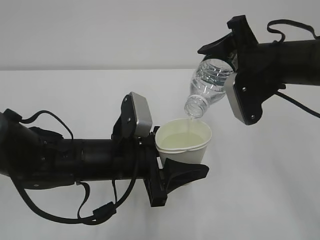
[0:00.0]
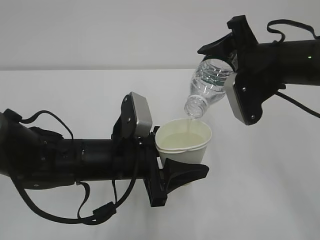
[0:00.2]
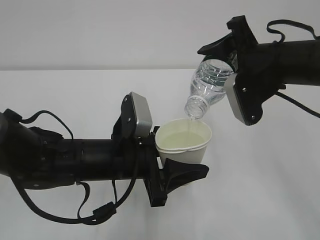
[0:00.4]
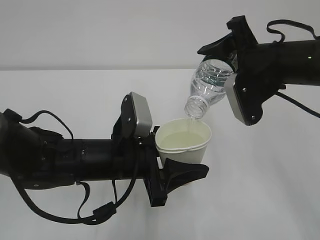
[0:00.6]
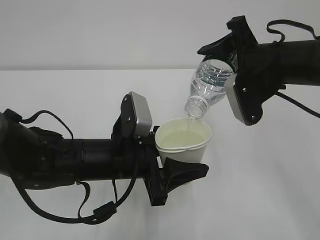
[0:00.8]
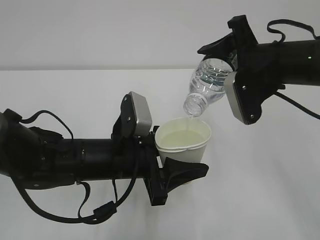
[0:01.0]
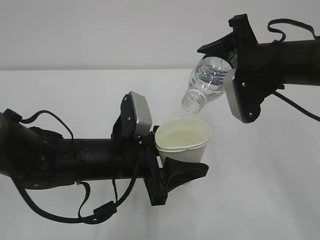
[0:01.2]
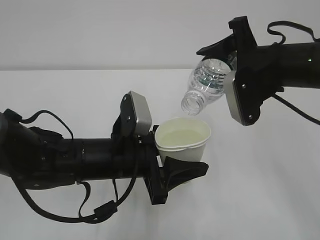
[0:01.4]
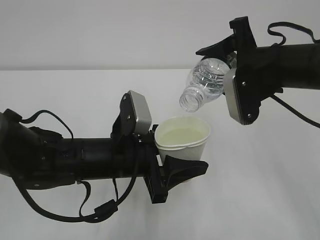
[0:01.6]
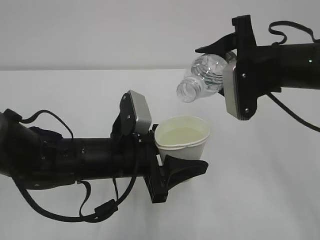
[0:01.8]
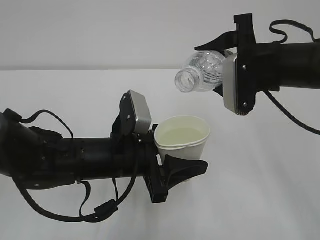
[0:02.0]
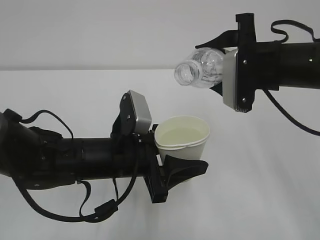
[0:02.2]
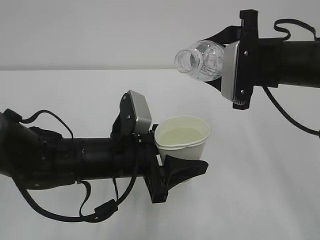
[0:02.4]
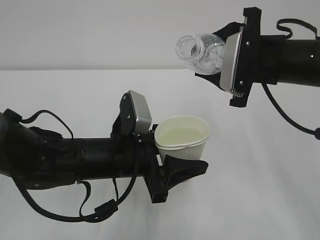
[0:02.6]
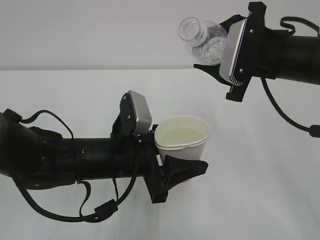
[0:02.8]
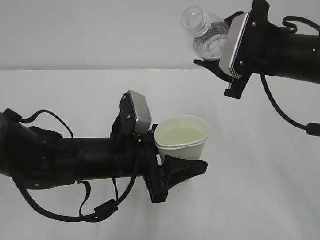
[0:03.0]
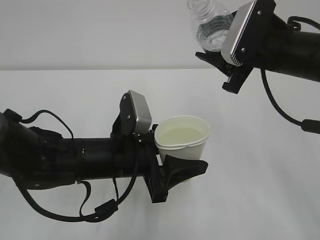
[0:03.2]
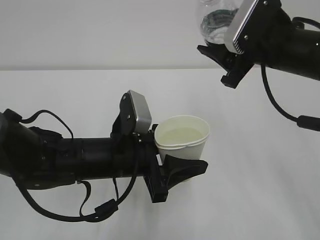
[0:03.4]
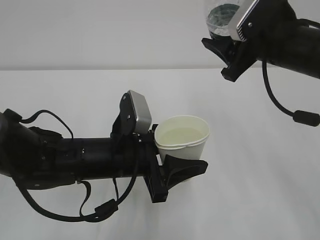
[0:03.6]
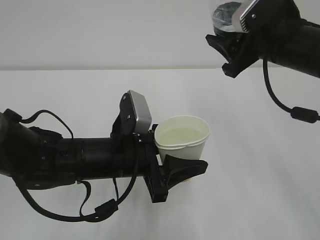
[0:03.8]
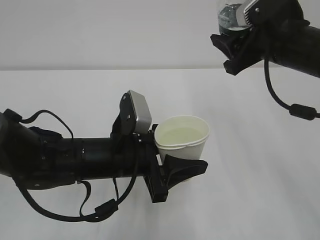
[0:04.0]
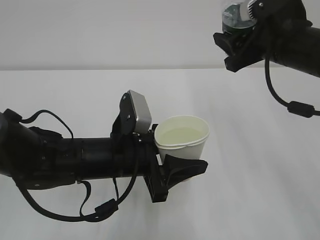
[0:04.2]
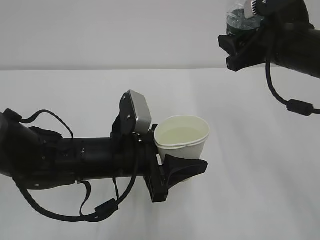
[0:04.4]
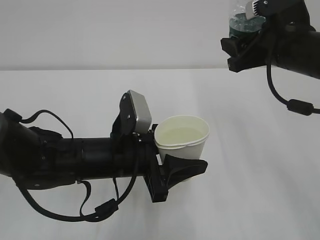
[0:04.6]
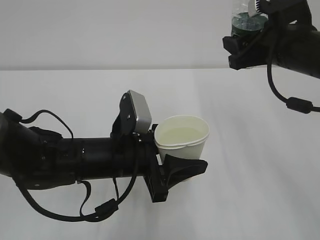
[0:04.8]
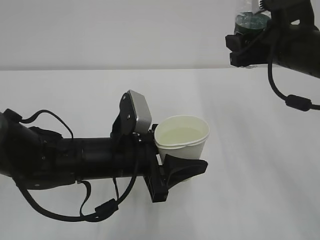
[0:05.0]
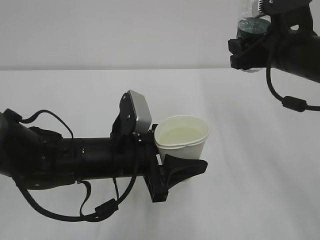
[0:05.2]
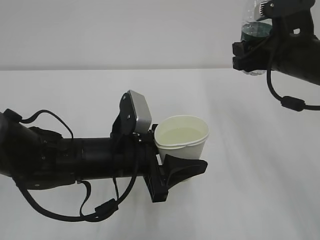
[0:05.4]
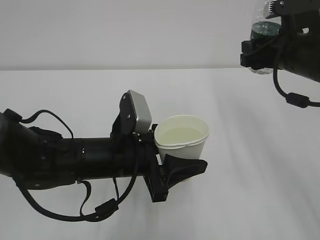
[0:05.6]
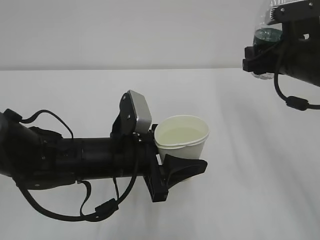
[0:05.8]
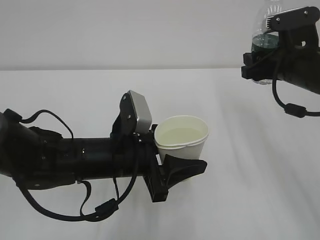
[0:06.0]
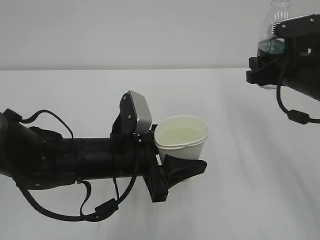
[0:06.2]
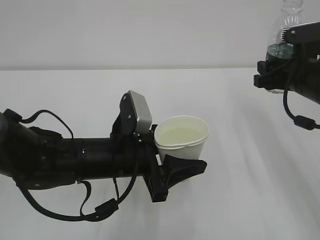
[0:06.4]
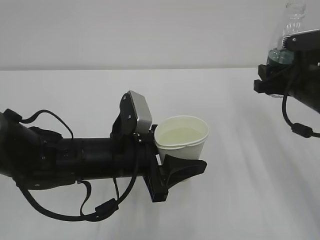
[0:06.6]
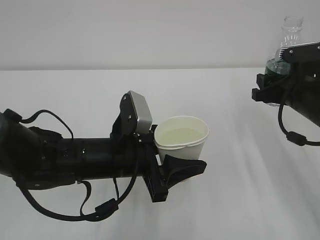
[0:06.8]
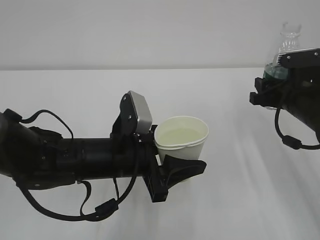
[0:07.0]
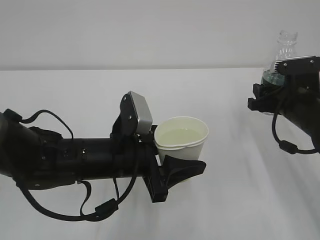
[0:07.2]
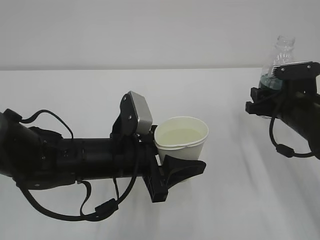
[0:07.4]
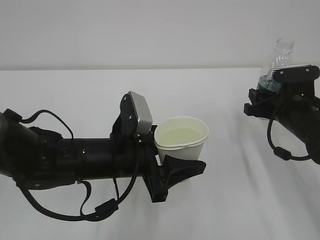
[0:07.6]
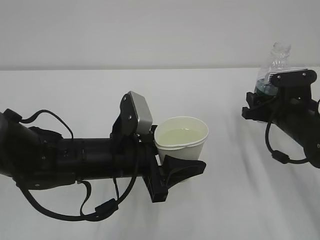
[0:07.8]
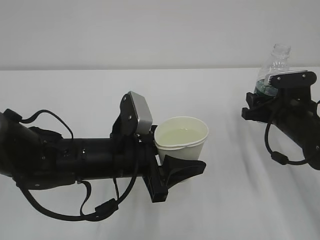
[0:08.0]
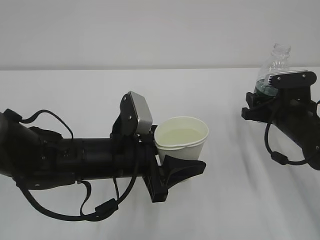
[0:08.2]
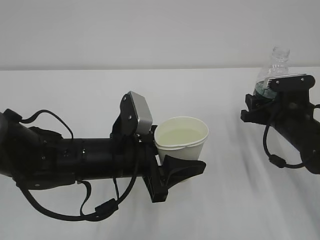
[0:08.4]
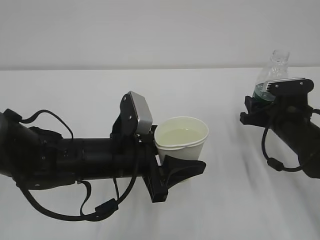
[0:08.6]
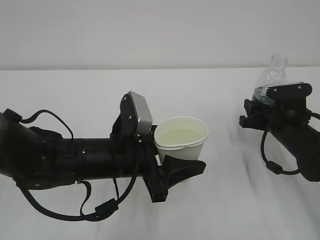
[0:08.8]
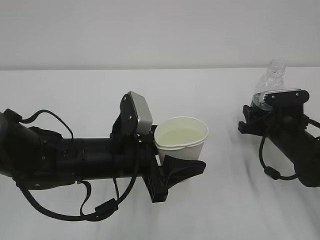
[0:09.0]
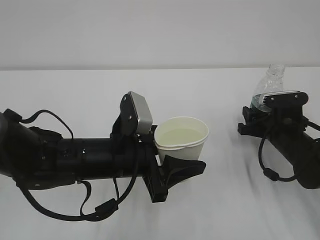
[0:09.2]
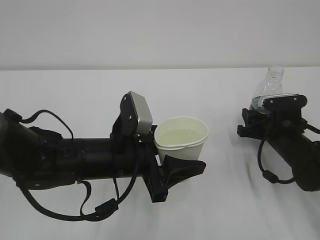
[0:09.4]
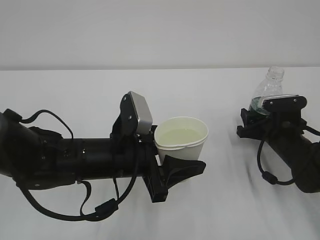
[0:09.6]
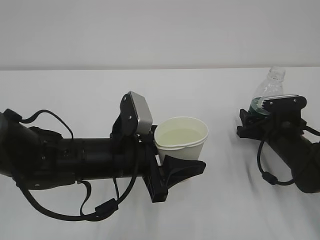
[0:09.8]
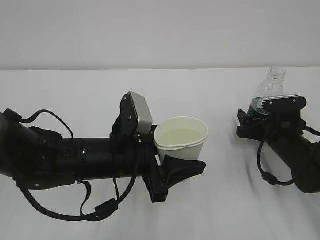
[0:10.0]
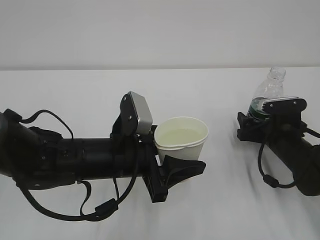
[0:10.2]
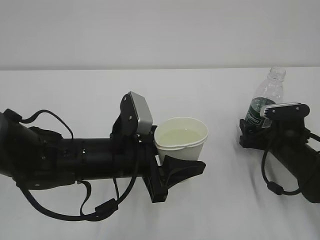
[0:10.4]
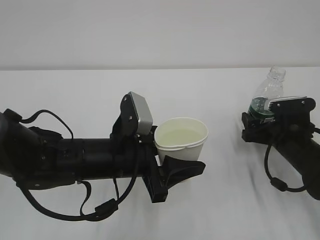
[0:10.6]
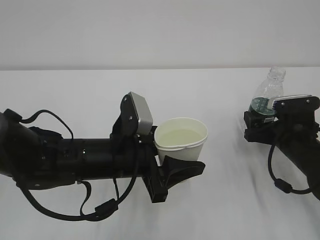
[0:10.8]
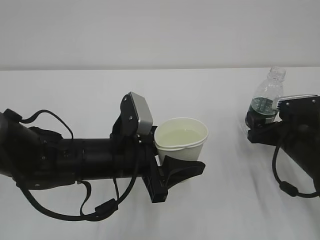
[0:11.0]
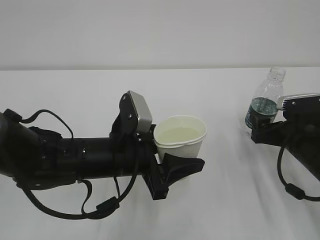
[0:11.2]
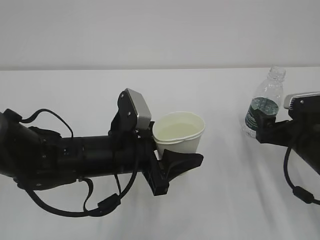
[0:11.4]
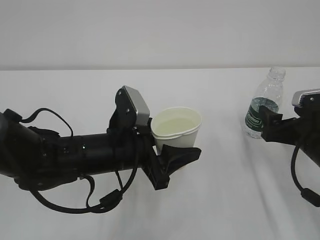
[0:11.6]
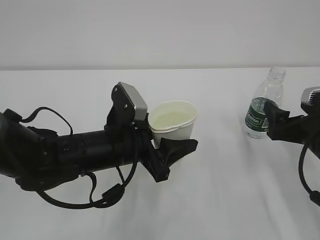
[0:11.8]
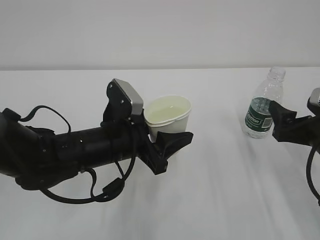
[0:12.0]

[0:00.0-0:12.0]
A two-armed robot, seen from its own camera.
0:00.0 to 0:01.6: There are only small adjustments of the grippers.
0:04.4 to 0:06.0: The right gripper ends up about 5 cm from where it was.
0:06.0 to 0:07.6: The right gripper travels downward by about 10 cm.
0:07.6 to 0:09.0: The right gripper shifts about 5 cm downward.
0:09.0 to 0:10.4: The right gripper opens its fingers.
0:10.4 to 0:12.0: The right gripper is displaced upward and backward by about 10 cm.

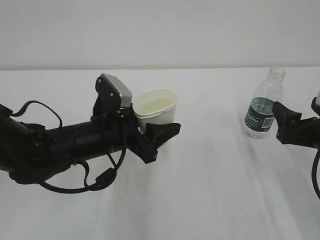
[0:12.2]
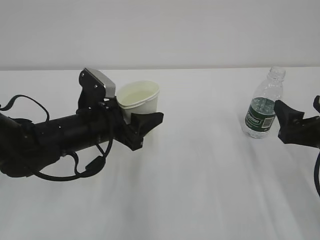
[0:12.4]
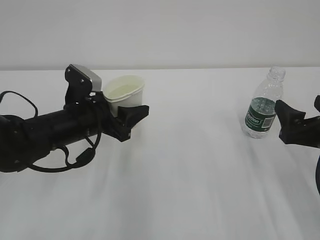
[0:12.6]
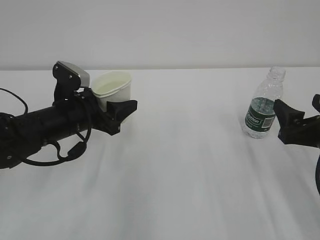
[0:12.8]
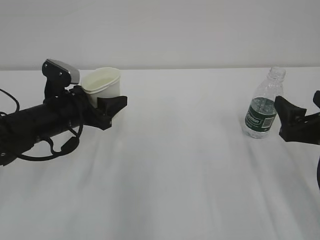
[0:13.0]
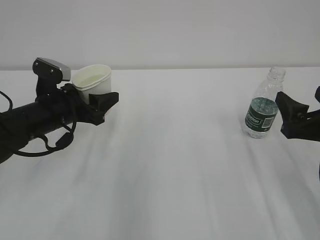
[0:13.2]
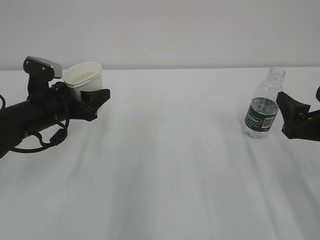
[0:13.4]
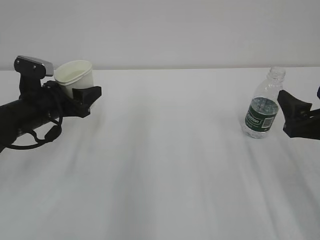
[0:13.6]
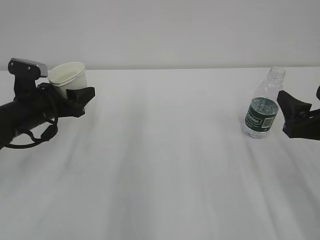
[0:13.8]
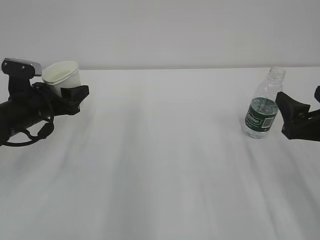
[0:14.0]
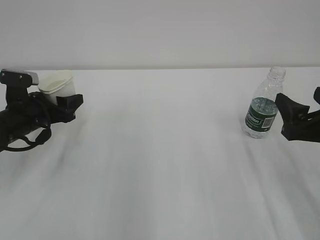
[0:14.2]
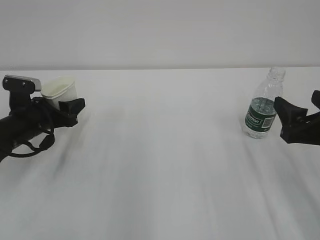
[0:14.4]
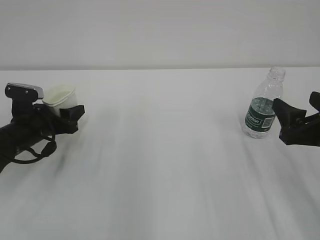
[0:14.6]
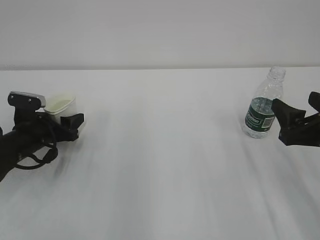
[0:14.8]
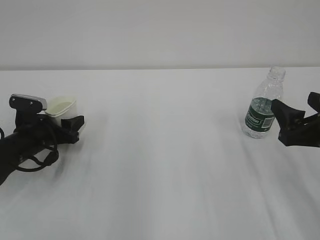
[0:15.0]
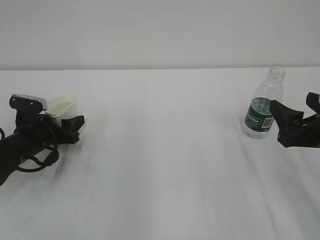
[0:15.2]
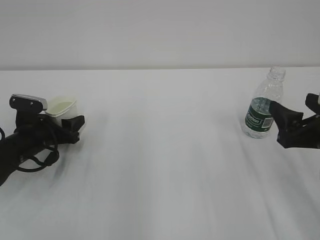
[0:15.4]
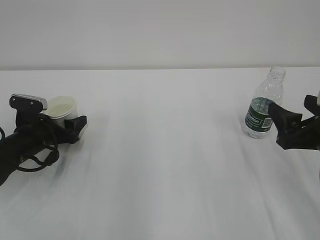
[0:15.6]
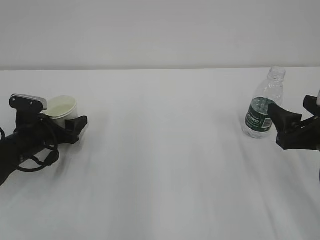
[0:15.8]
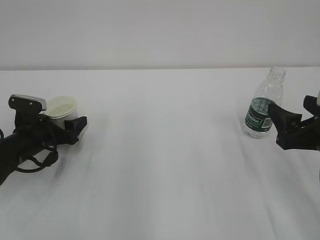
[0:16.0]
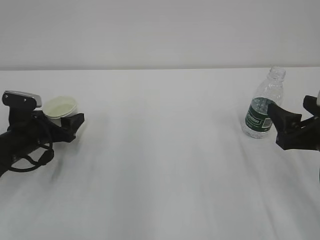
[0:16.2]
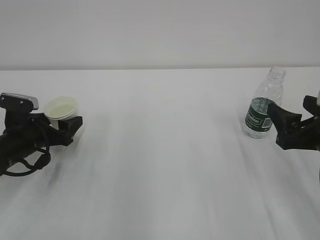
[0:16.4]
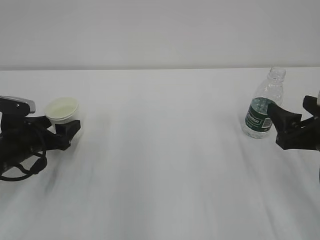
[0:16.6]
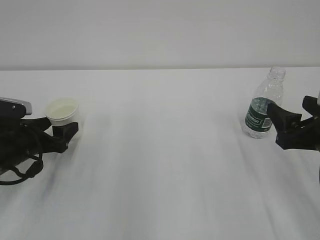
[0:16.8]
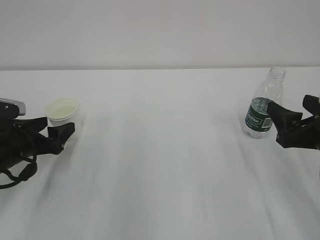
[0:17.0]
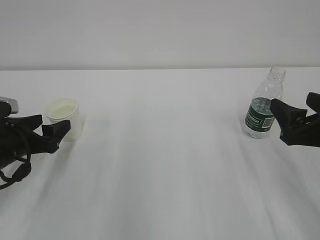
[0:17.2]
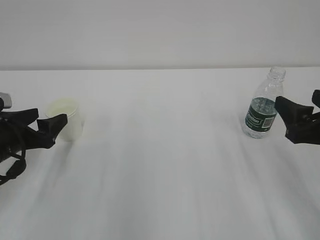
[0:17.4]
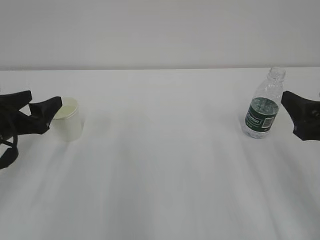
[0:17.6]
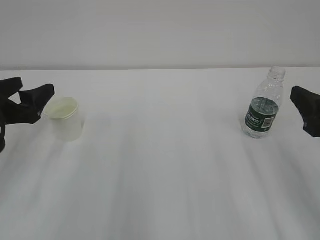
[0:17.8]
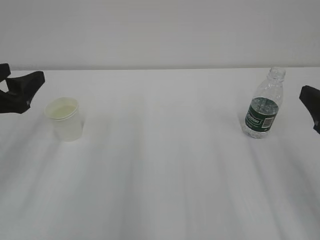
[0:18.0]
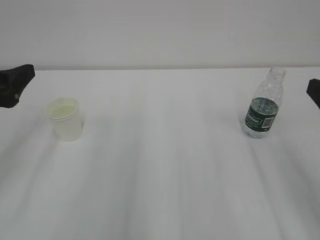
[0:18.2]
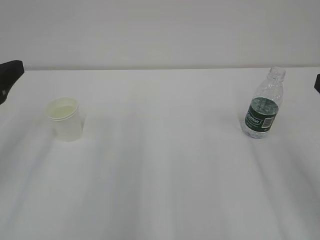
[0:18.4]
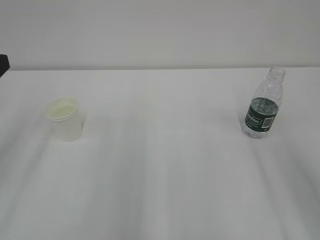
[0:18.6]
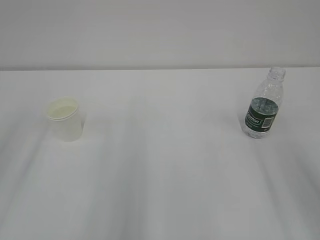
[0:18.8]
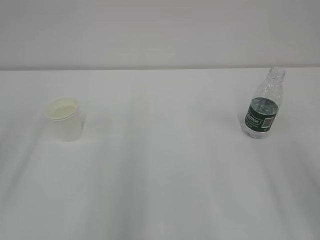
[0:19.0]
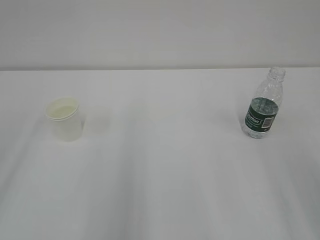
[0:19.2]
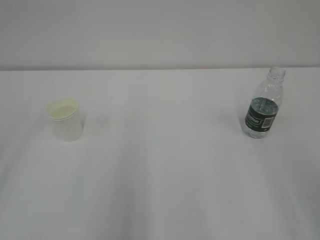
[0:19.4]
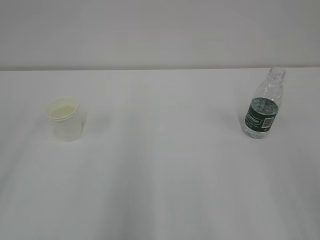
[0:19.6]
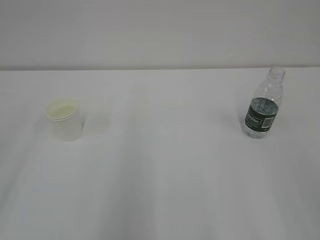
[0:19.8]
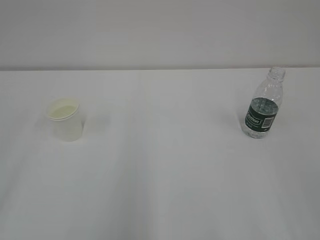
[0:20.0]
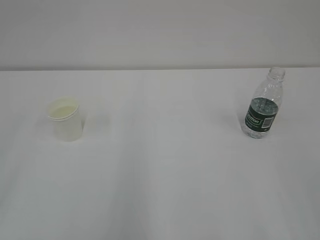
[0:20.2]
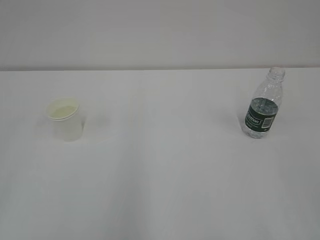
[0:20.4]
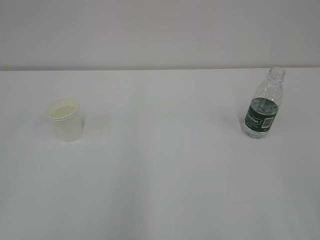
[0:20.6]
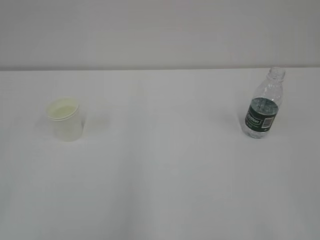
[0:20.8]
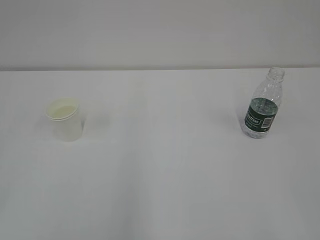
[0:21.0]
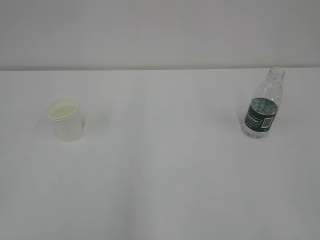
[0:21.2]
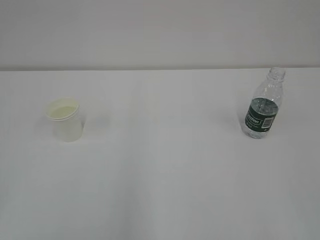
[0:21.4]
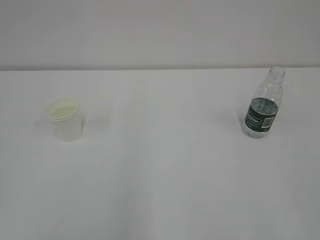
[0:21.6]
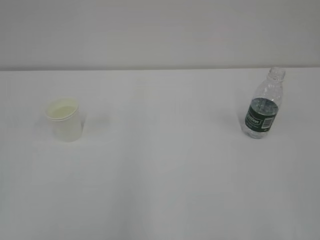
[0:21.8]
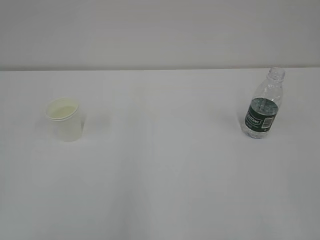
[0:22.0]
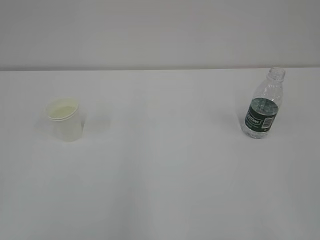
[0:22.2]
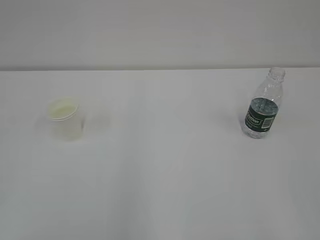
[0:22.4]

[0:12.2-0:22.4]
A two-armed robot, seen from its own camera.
0:12.2 to 0:13.6: The left gripper travels to the left and forward by about 15 cm.
0:13.6 to 0:15.2: The left gripper travels downward by roughly 10 cm.
0:15.2 to 0:16.6: The left gripper opens its fingers.
0:16.6 to 0:18.0: The left gripper shifts roughly 15 cm upward and backward. The right gripper shifts approximately 5 cm upward.
0:18.0 to 0:19.4: Both grippers travel together backward and upward, about 15 cm.
0:21.0 to 0:22.4: Both grippers stay about where they are.
